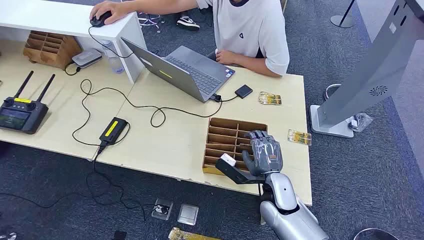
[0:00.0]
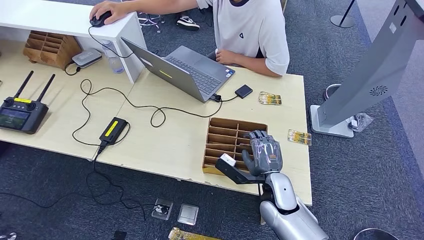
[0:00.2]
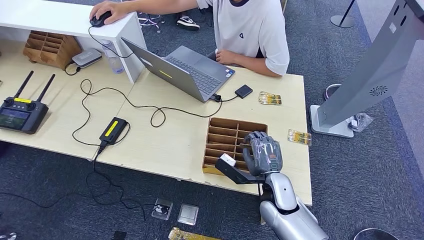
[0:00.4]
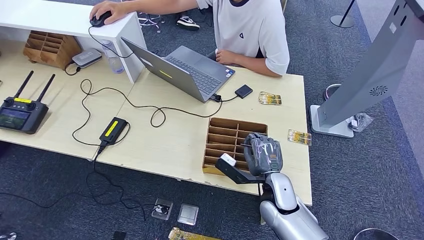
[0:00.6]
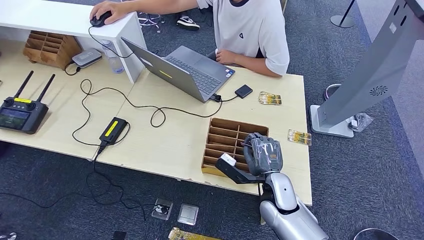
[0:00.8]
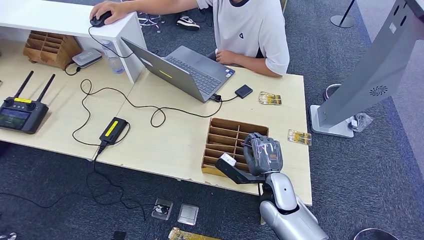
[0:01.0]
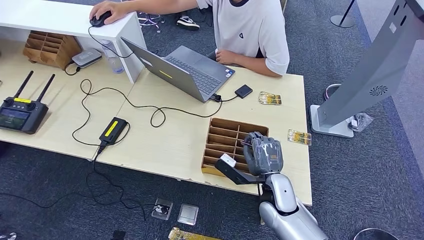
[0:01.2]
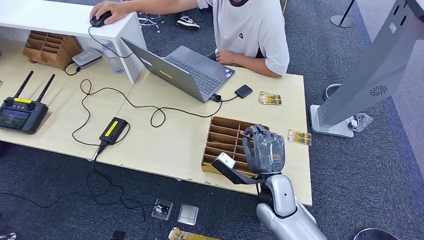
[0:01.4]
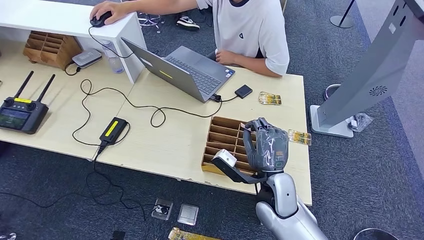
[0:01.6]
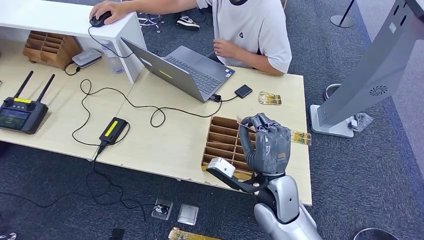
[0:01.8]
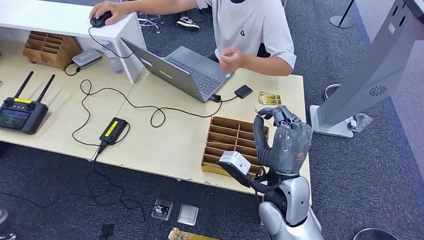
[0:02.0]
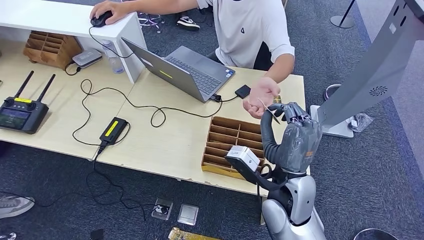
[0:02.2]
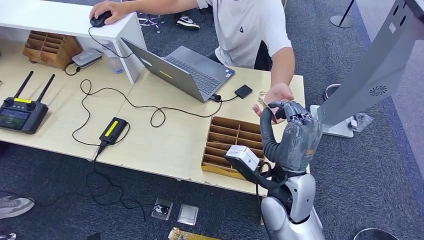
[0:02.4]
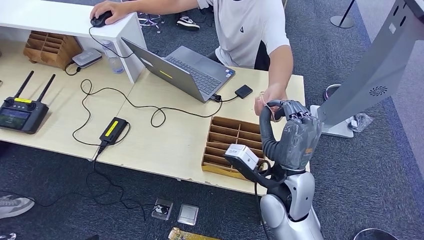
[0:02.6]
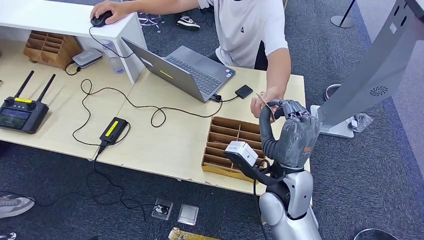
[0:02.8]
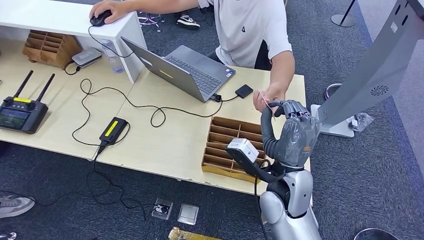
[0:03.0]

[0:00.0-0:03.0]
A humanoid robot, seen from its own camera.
Step, 0:00.0 to 0:01.4: Pick up the key card from the card box.
Step, 0:01.6 to 0:03.0: Hand the key card to the target.
0:01.6 to 0:03.0: The right hand shifts some 5 cm upward.

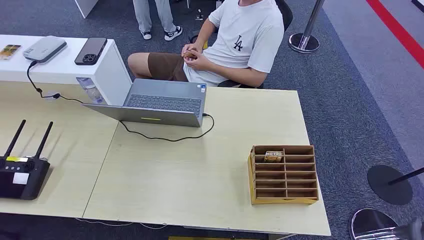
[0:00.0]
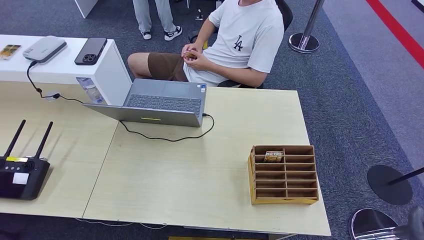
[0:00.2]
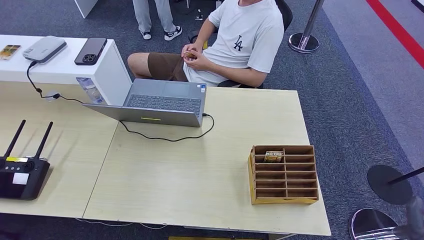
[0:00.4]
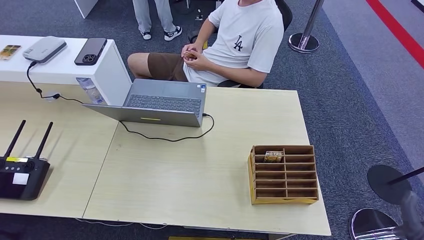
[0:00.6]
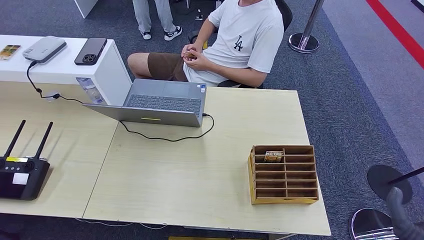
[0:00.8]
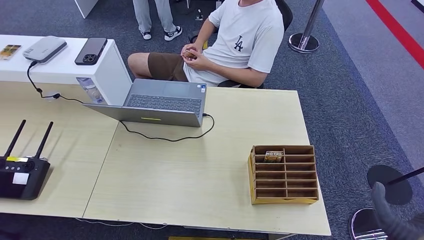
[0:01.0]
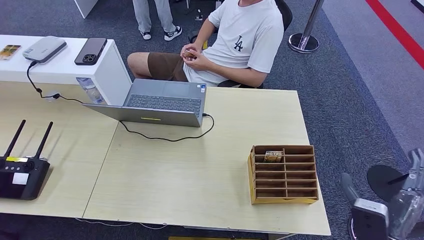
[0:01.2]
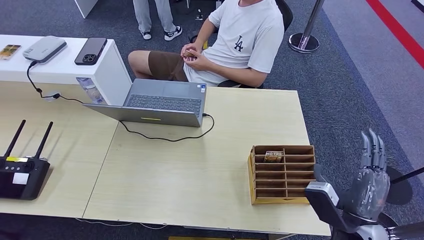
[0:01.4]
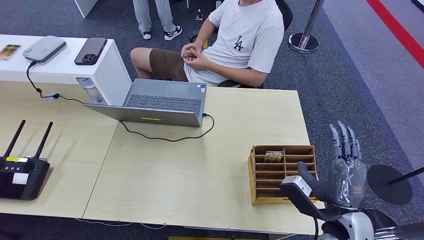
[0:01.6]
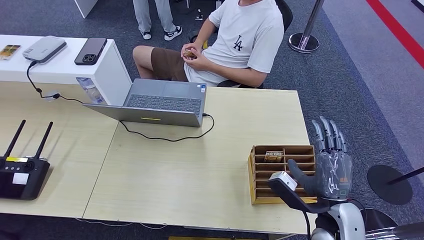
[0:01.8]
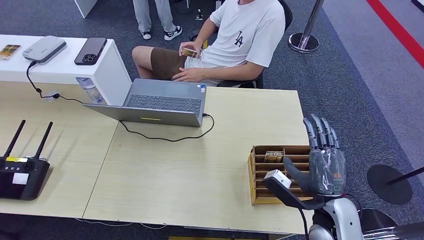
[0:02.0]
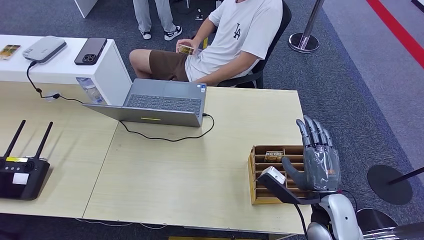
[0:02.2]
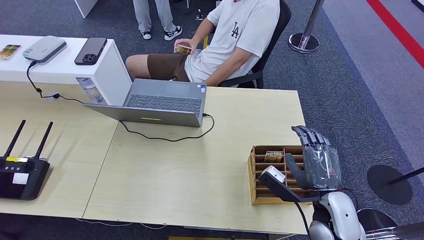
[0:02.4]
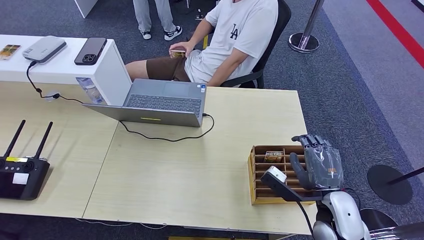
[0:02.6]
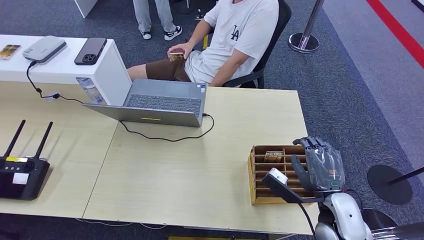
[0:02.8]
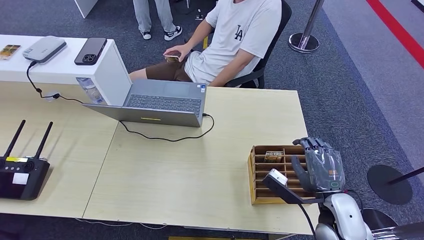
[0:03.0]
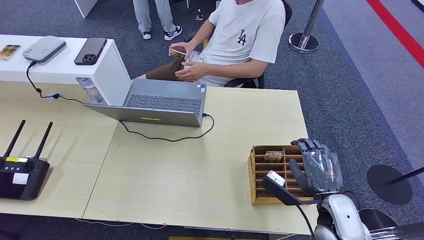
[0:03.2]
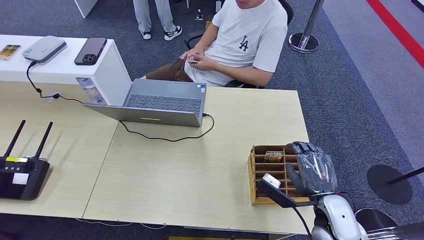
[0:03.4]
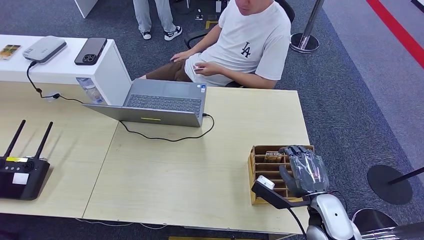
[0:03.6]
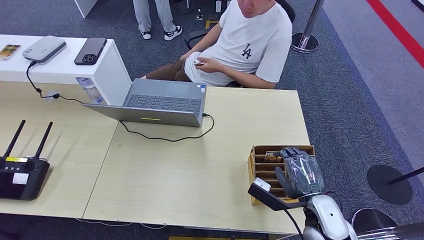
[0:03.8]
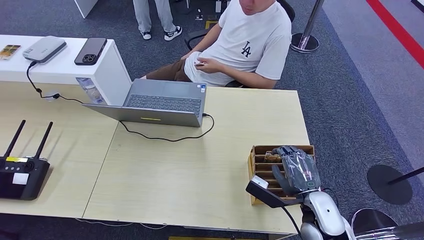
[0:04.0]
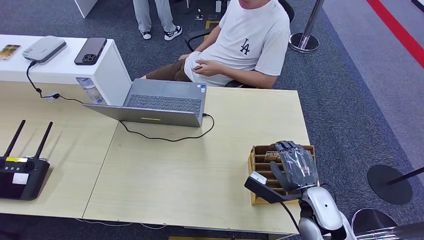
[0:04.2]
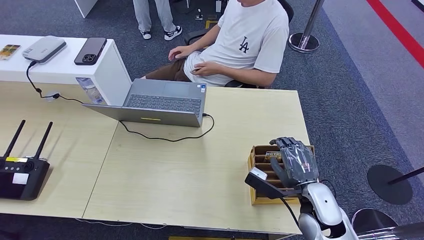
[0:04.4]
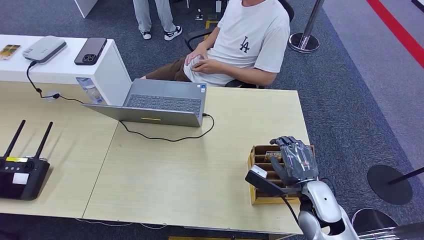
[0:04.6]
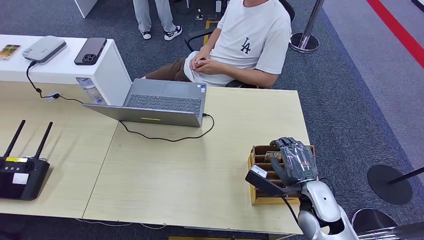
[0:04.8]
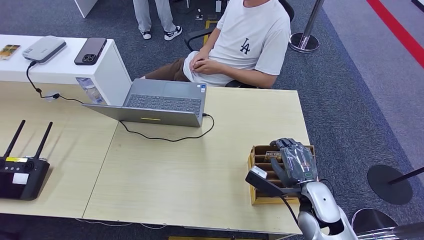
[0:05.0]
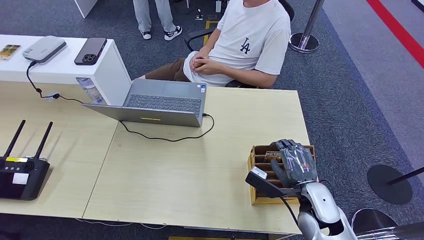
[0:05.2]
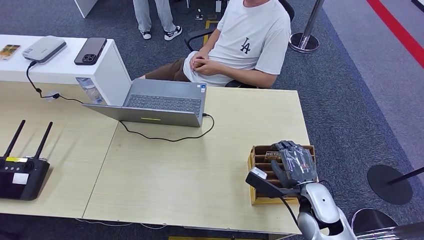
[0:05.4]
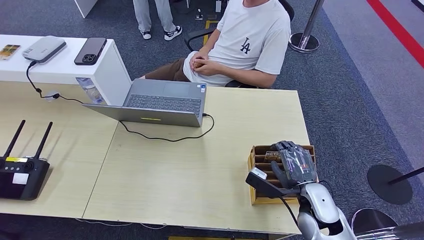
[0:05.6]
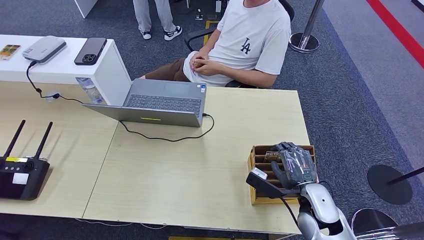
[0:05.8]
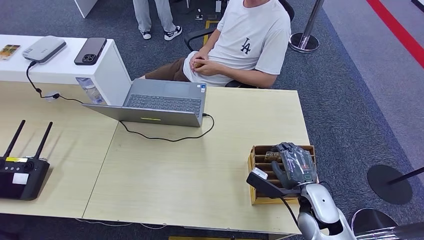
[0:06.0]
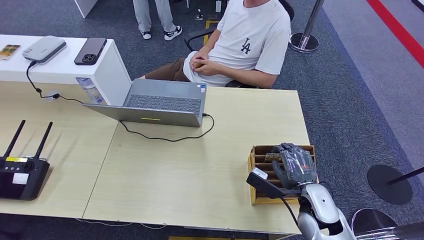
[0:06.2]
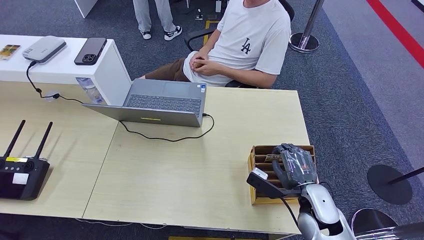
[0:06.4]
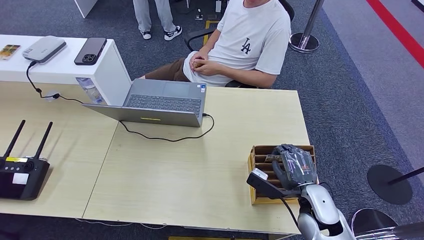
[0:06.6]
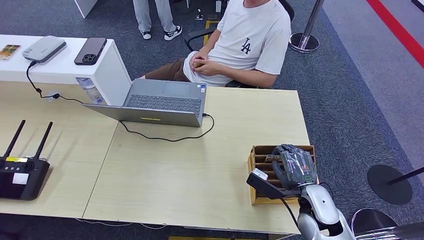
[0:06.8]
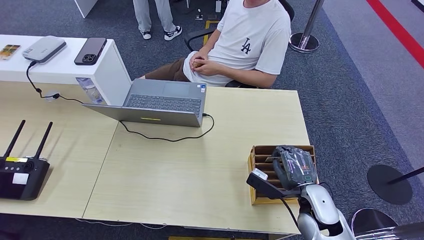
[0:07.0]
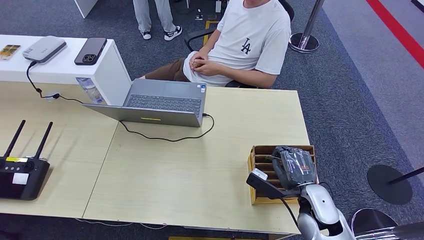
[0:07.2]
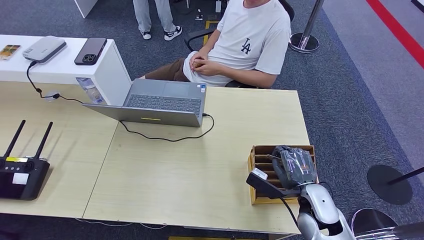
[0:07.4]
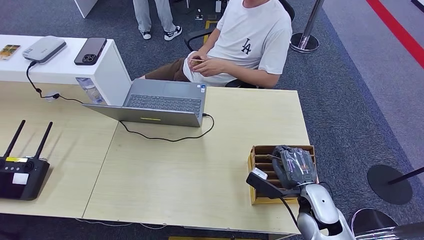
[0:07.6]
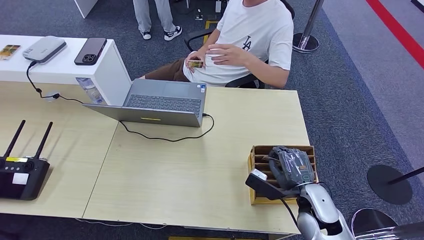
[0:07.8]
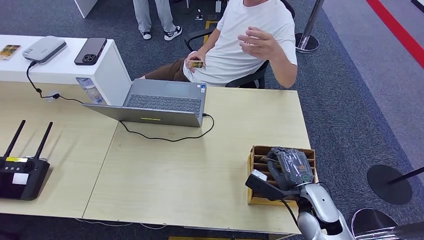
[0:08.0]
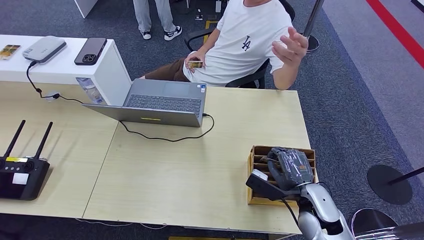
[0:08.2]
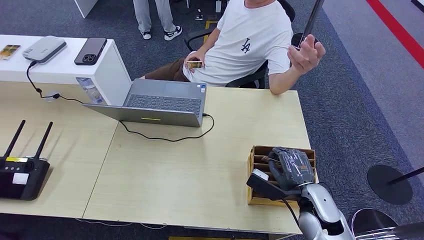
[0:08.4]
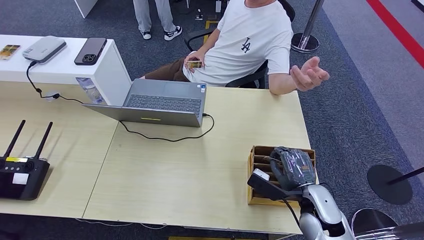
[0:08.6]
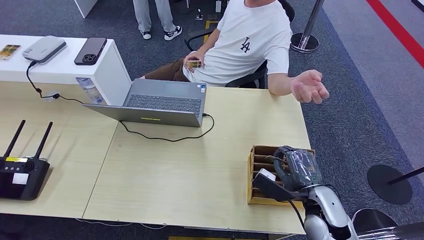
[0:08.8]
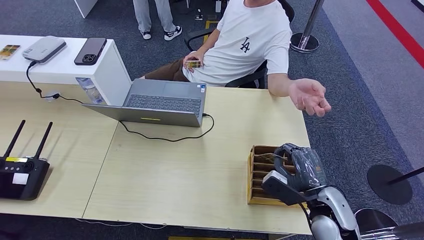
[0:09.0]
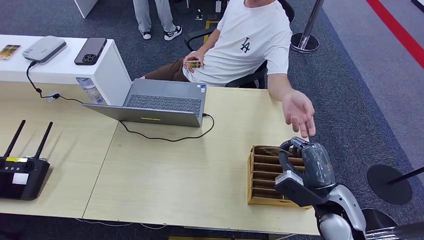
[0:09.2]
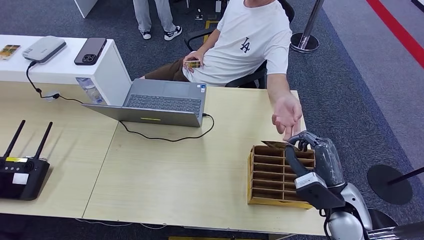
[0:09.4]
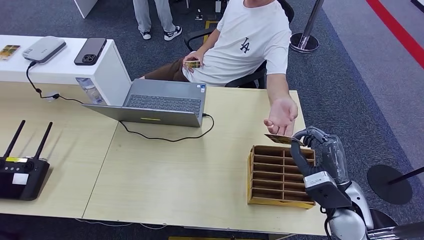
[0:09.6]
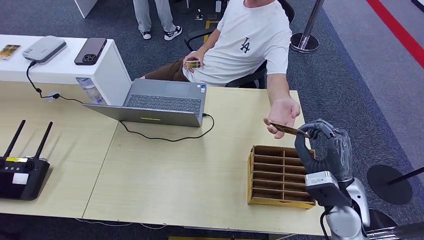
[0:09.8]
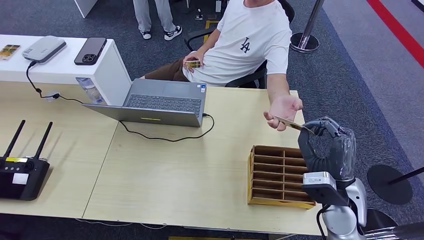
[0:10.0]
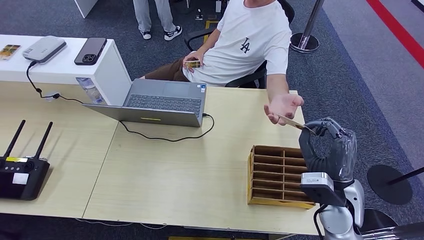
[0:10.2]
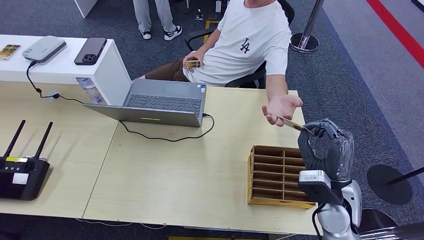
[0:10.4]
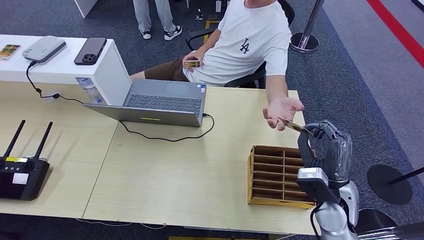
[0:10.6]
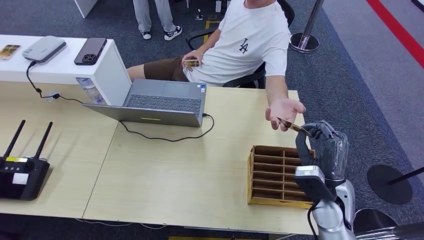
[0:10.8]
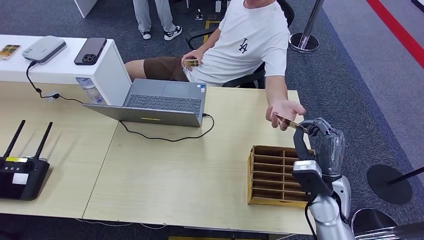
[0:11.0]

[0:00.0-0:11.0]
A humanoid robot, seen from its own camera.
Step, 0:00.0 to 0:09.4: Pick up the key card from the card box.
Step, 0:09.6 to 0:11.0: Hand the key card to the target.
0:03.2 to 0:04.8: The right hand changes place by roughly 5 cm.
0:04.8 to 0:06.2: The hands stay close to where they were, moving slightly.
0:06.2 to 0:07.8: Both hands stay put.
0:07.8 to 0:09.4: The right hand heads upward, covering approximately 5 cm.
